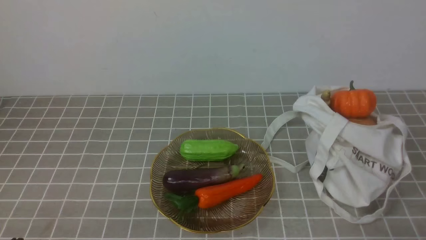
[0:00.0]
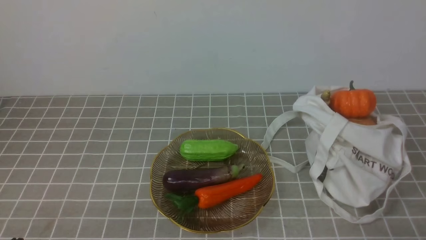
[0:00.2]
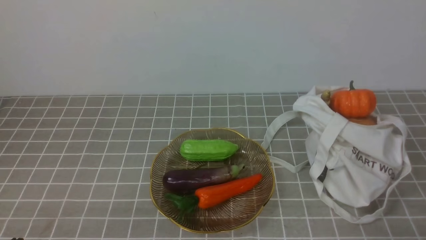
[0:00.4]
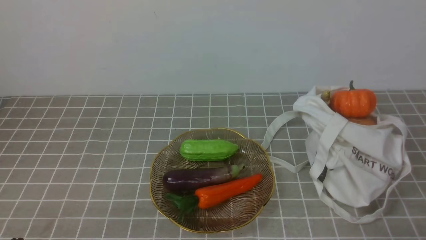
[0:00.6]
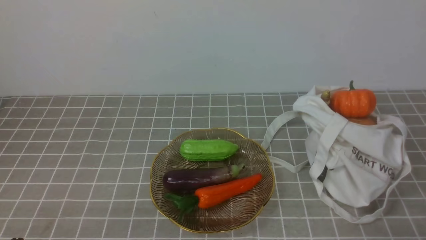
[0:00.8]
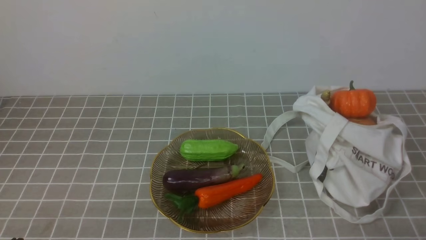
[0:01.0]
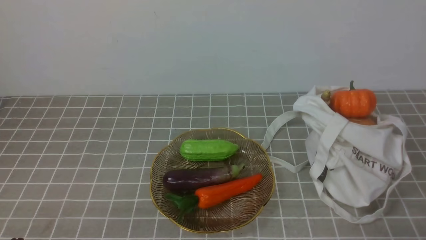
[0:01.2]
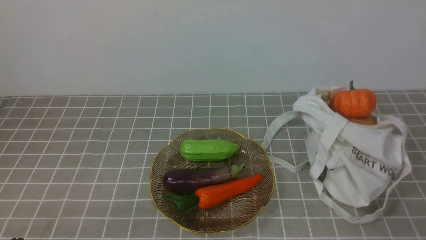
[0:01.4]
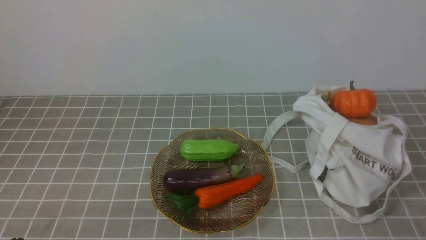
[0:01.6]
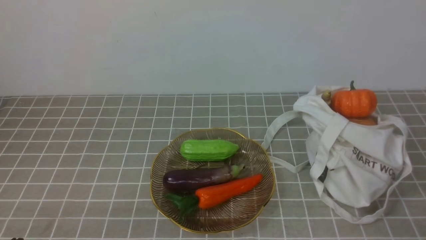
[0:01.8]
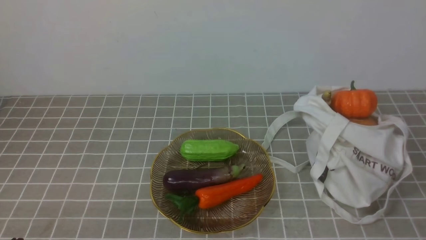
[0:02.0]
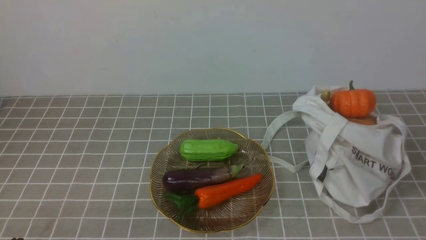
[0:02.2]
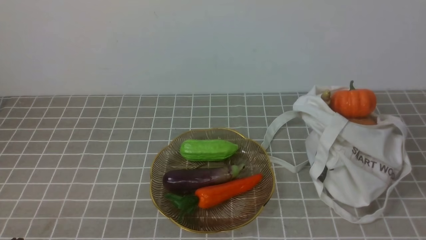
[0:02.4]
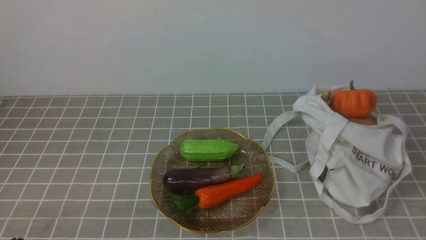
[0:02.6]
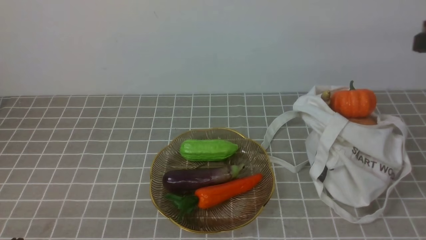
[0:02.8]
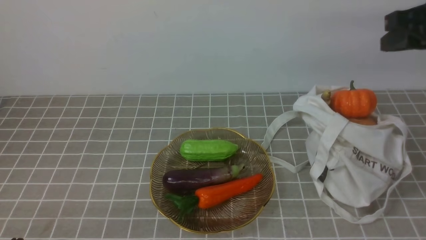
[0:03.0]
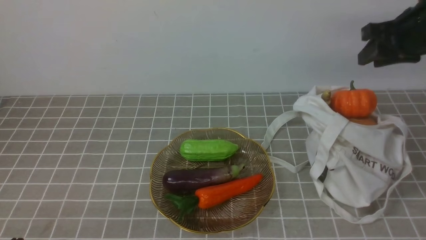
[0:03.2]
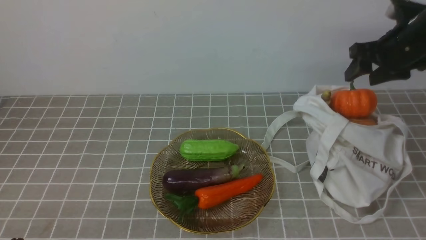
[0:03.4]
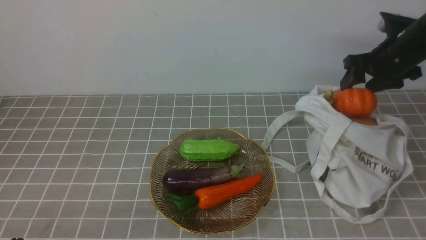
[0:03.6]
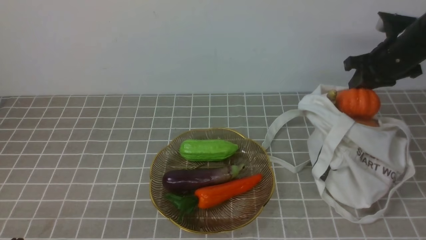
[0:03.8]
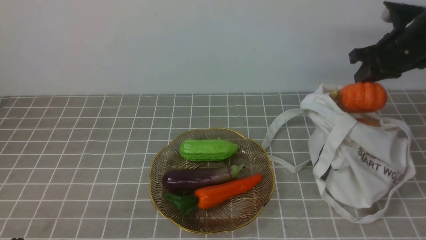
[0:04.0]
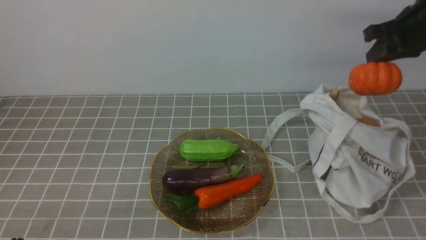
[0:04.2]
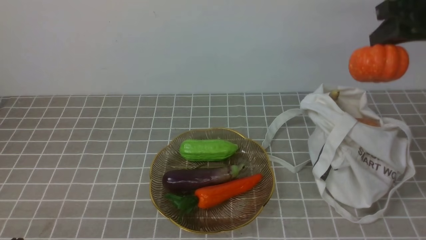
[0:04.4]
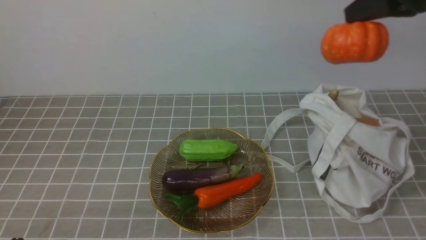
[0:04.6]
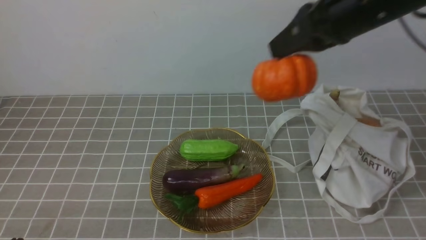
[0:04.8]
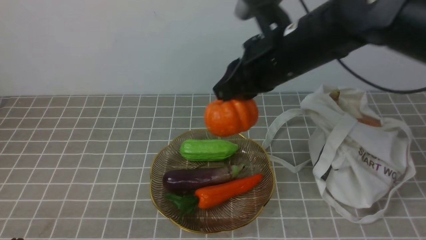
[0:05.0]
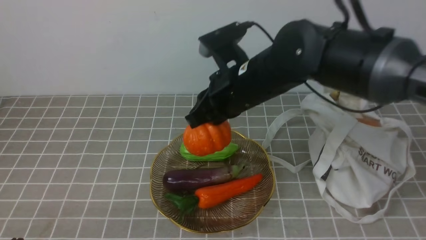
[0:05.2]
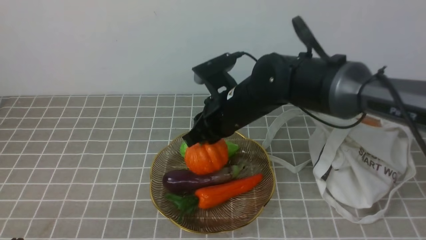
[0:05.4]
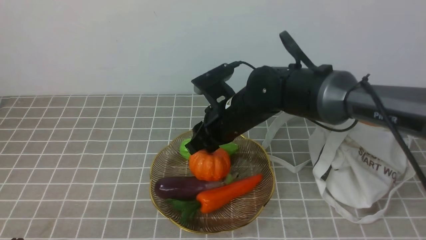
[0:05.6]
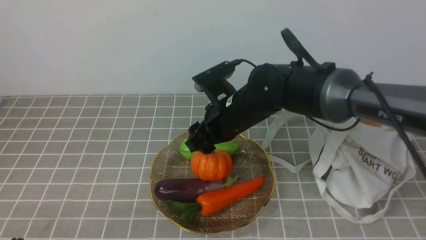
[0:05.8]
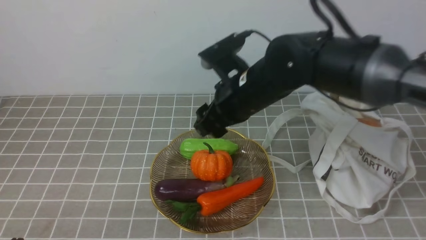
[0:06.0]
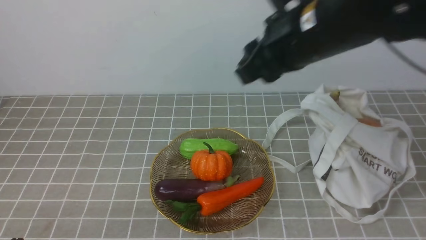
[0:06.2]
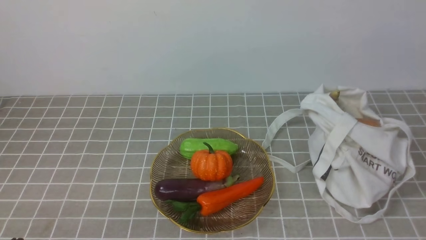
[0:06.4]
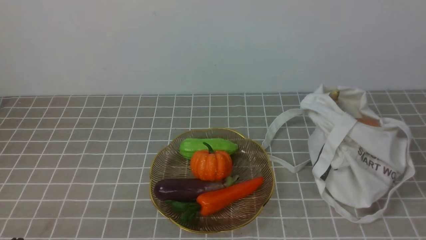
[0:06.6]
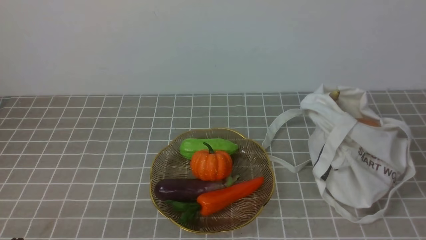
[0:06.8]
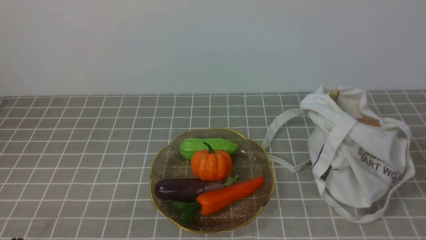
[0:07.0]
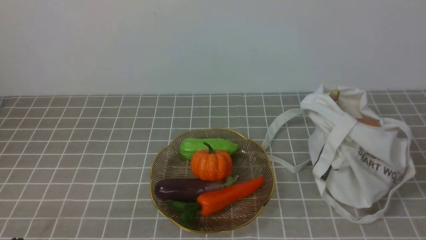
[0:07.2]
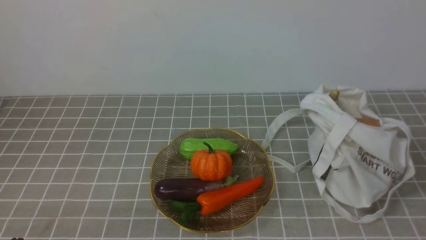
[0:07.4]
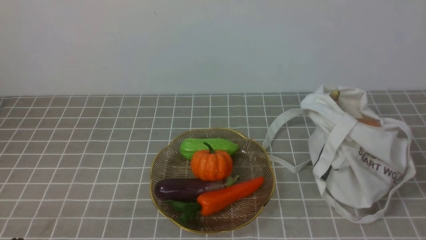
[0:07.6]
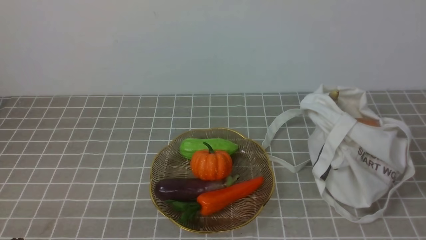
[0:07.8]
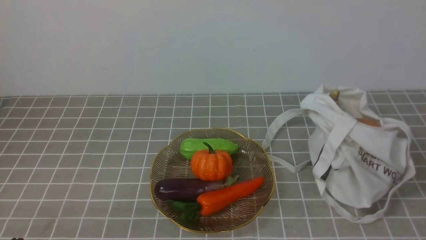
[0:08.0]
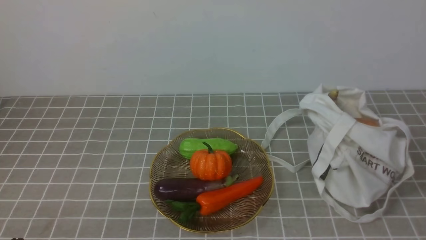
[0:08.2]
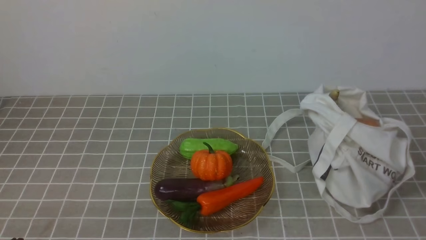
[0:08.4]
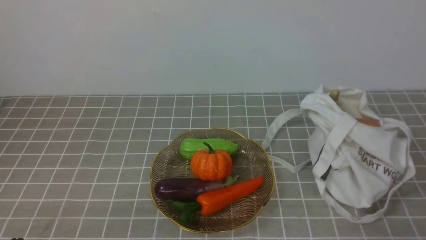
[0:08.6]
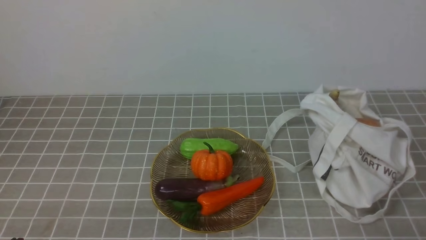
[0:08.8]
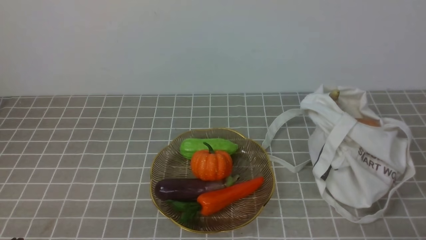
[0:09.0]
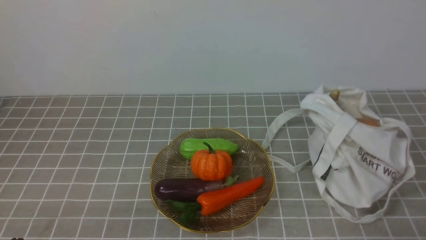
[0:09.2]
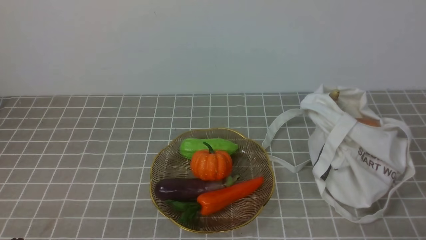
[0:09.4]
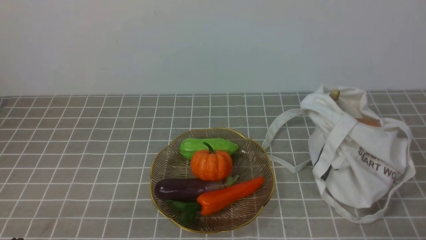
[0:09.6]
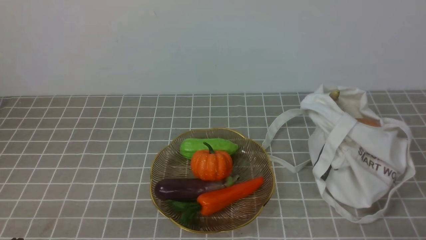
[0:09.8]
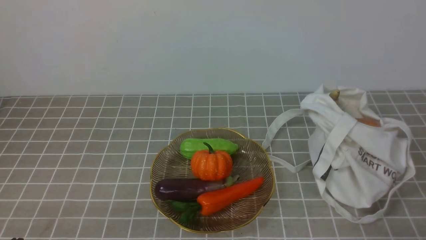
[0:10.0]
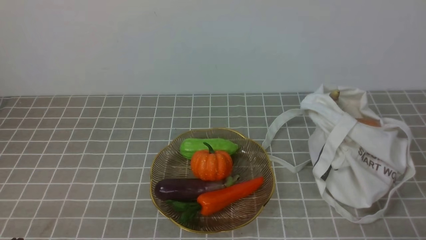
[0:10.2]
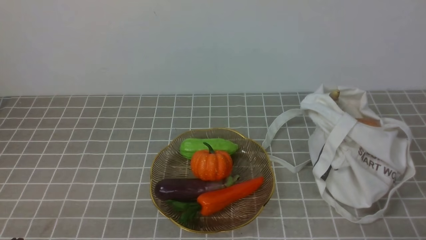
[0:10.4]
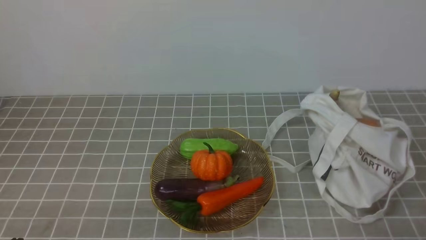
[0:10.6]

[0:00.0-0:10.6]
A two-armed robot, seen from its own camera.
Task of the whole recording: take vegetables from bag on grey coffee tablecloth place on plate.
Step, 0.0 to 3.8 s: Grasp the pumpkin with right gripper.
Step, 4.0 to 6.0 s: Place the pumpkin on the plate with right gripper.
1.6 to 3.0 s: The right gripper goes some 35 cm forward and upward, and opens up.
3.0 to 4.6 s: The right gripper is displaced to the left by approximately 10 cm, travels downward and back again, about 10 cm each way, and opens, then closes again.
4.6 to 6.0 s: The right gripper heads to the left and downward, covering about 20 cm, and opens.
6.0 to 7.6 s: The right gripper goes approximately 40 cm backward and to the right, and closes its fingers.
9.0 to 10.6 s: Both grippers stay put.

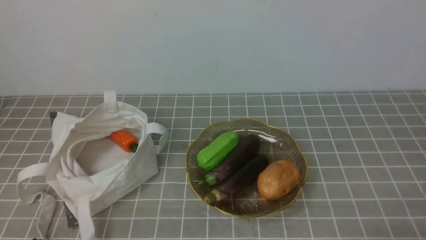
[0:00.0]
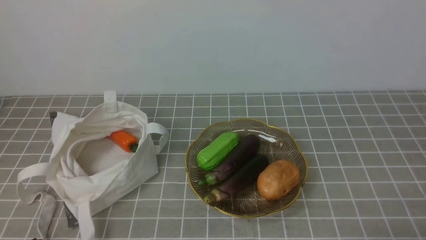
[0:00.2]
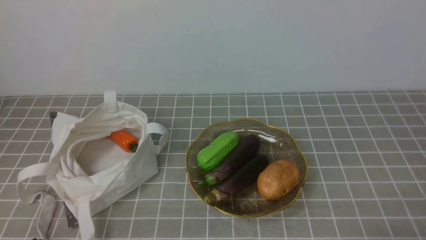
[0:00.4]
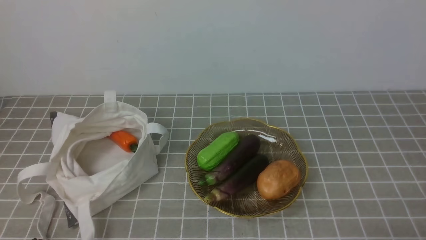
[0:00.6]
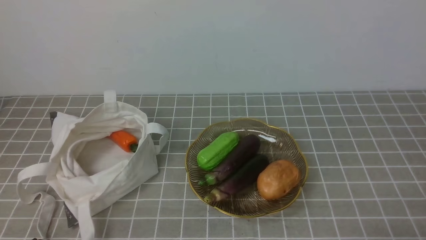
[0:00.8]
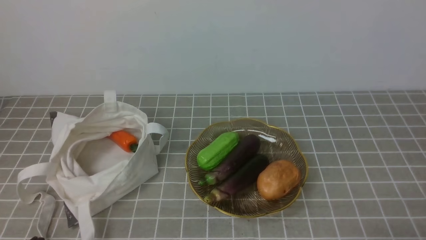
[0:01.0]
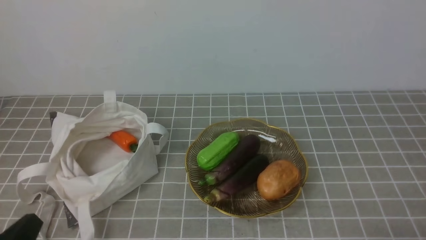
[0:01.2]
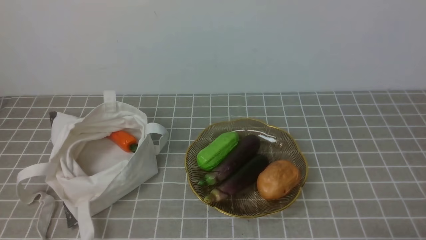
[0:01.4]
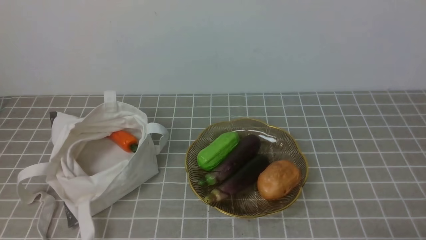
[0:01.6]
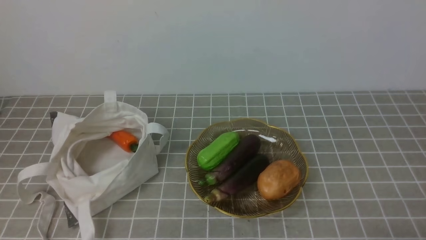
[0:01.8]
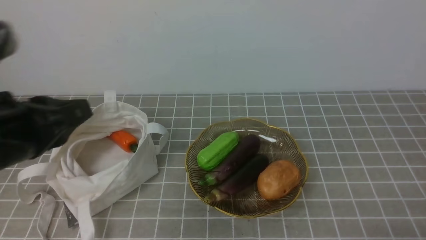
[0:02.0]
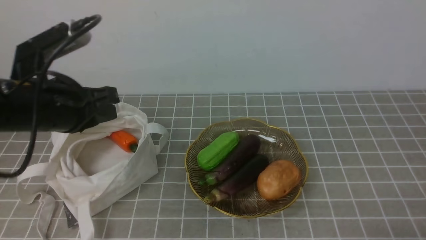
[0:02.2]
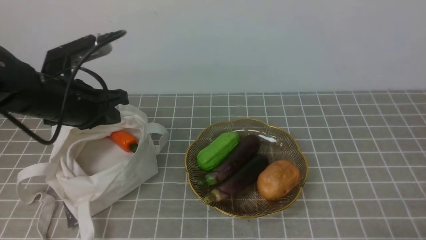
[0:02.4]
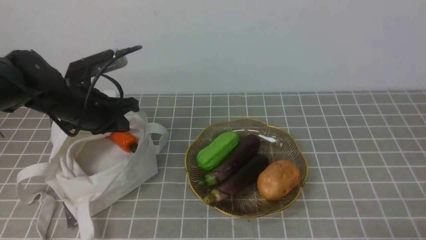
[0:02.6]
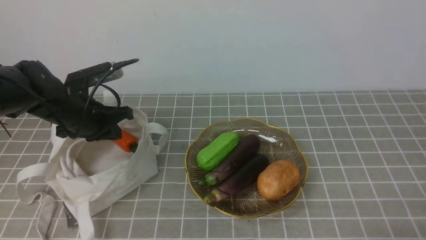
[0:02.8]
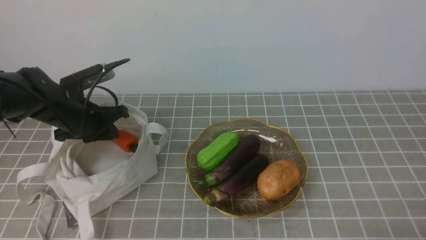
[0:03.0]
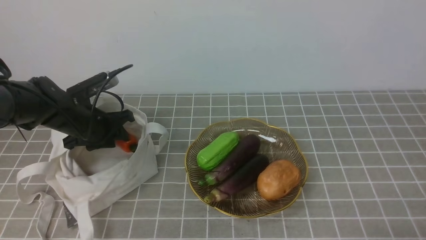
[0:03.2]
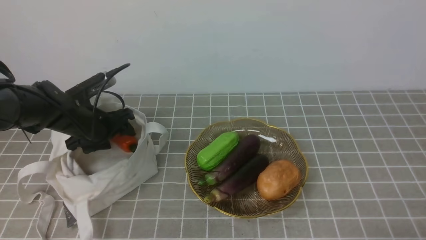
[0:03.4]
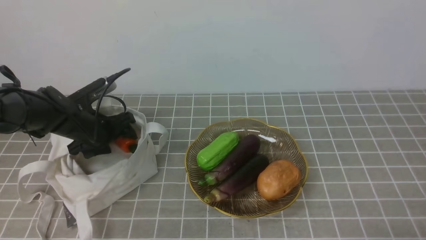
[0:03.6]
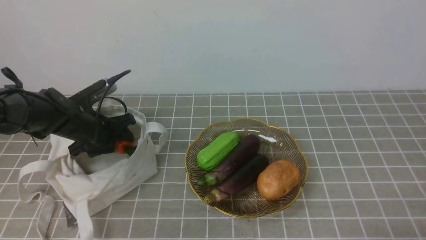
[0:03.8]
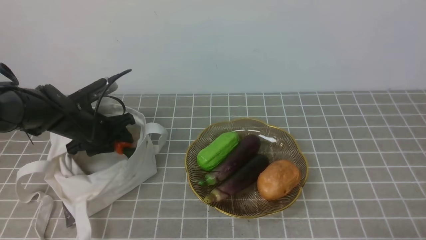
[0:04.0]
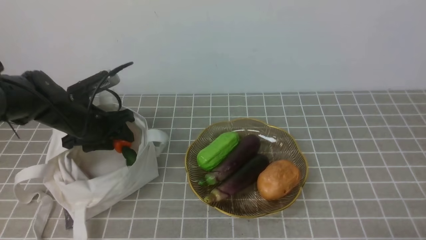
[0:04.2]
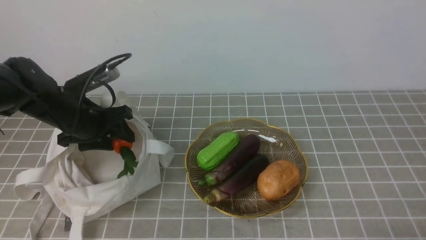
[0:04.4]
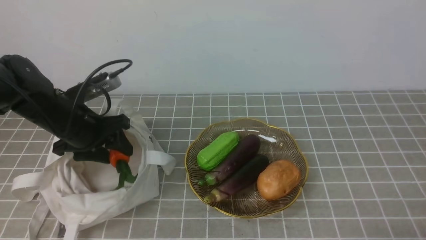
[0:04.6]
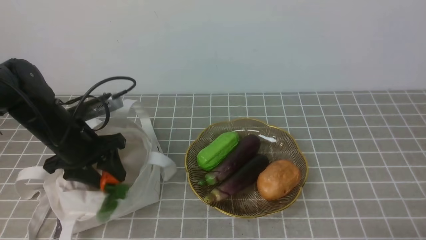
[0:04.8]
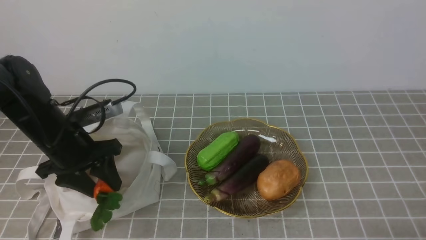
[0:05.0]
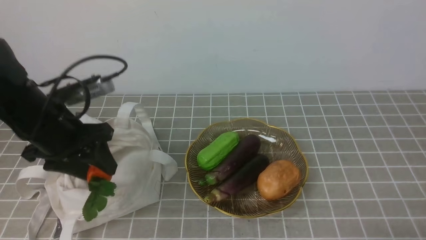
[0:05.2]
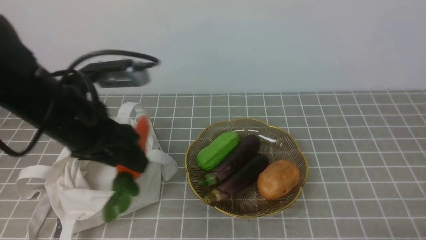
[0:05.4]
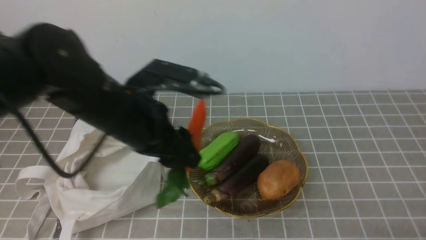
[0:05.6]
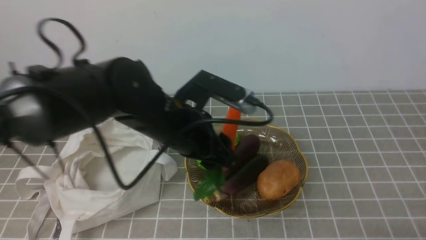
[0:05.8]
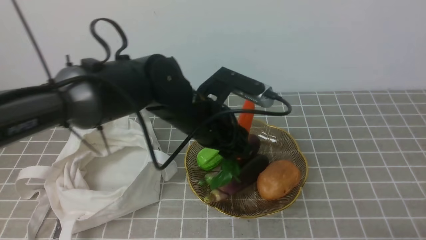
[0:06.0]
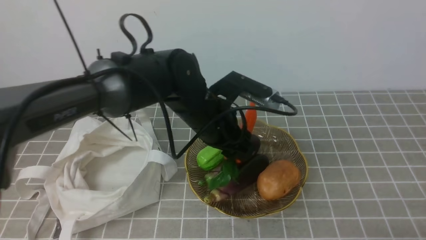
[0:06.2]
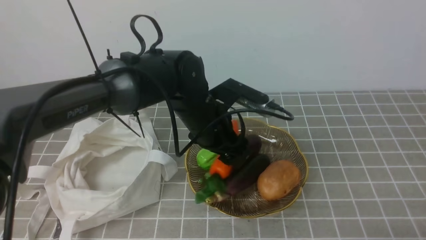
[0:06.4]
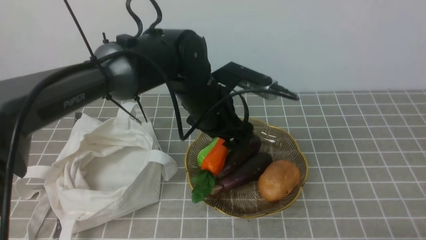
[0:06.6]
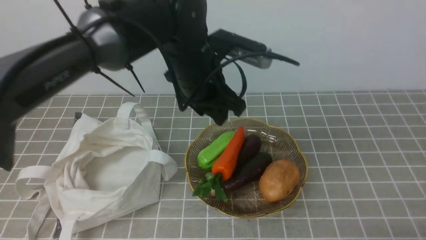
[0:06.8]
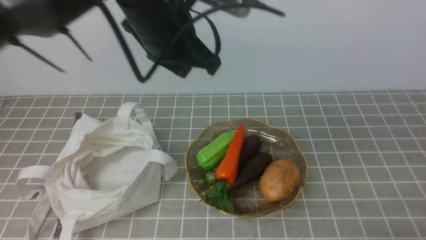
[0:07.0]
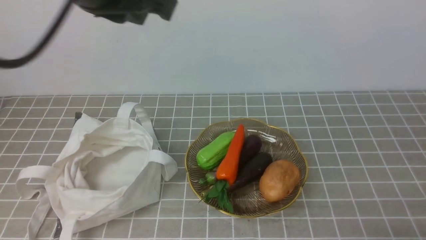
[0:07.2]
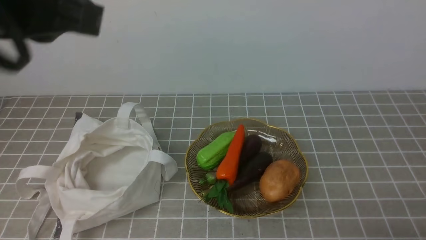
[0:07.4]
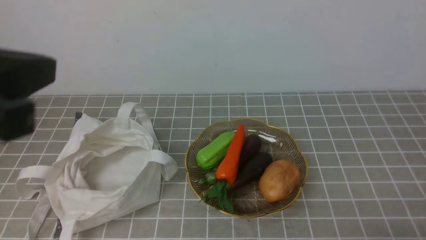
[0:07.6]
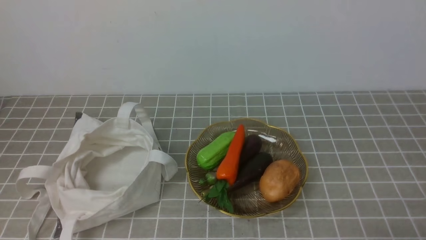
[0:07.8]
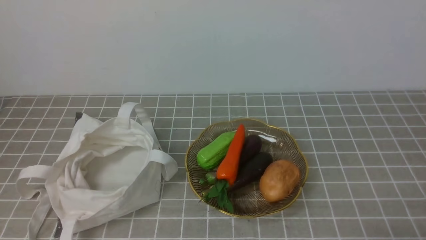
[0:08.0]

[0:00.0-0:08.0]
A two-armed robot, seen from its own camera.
Task of the whole recording: take vegetables from bag on grey coffee tablecloth place on plate.
Step, 0.0 to 3.8 s: Grasp the carrot with left gripper.
Step, 4.0 to 6.8 s: Place the carrot on the plate with left gripper.
1.6 to 3.2 s: The left gripper travels forward by about 35 cm, and opens its fingers.
3.2 to 4.8 s: The left gripper is displaced backward by some 5 cm.
4.8 to 6.4 s: The left gripper travels to the right by approximately 20 cm.
6.4 to 8.0 s: The left gripper moves backward, to the left and upward, approximately 40 cm, and closes up.
